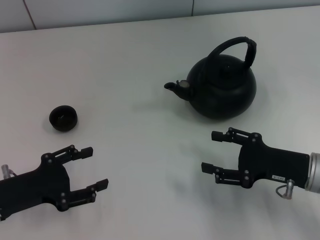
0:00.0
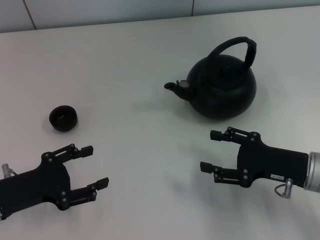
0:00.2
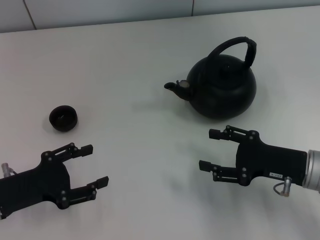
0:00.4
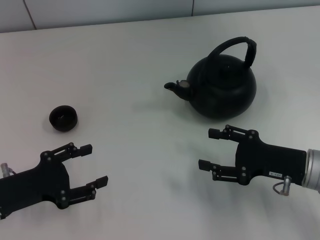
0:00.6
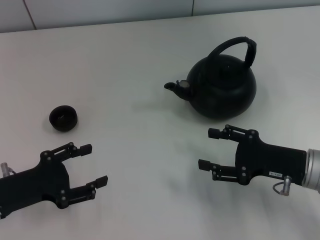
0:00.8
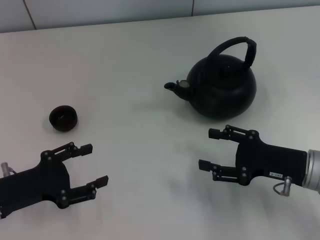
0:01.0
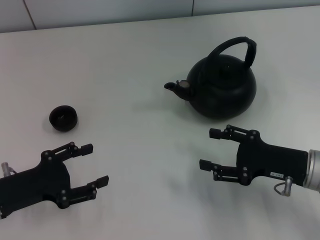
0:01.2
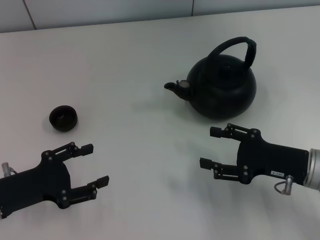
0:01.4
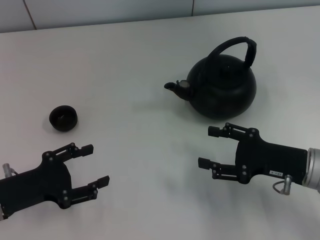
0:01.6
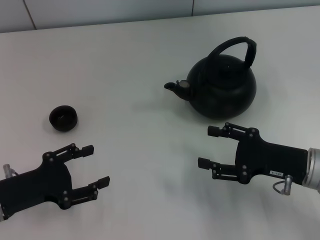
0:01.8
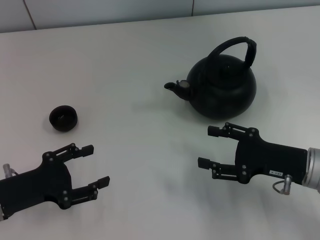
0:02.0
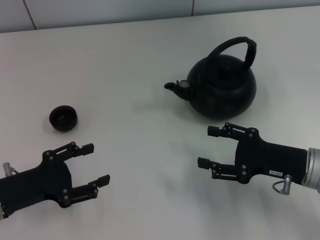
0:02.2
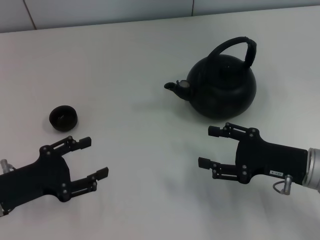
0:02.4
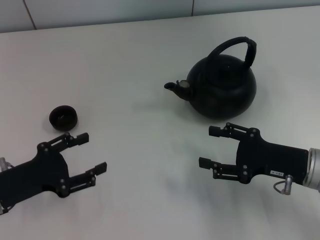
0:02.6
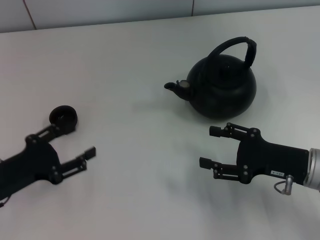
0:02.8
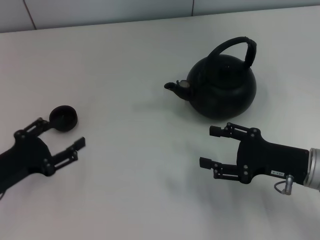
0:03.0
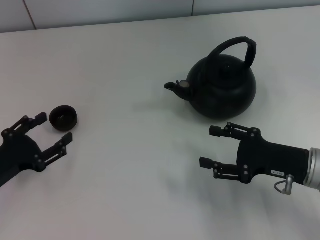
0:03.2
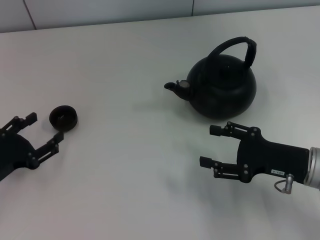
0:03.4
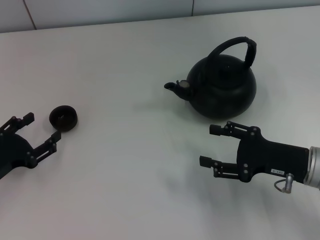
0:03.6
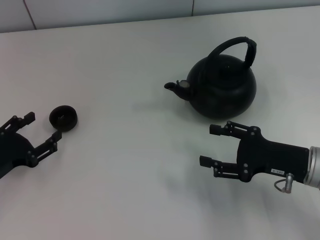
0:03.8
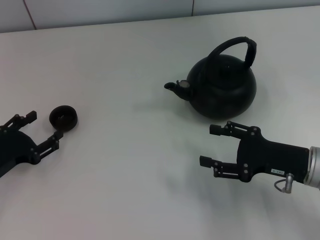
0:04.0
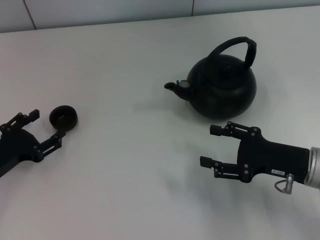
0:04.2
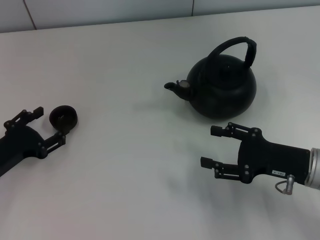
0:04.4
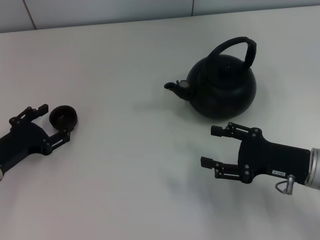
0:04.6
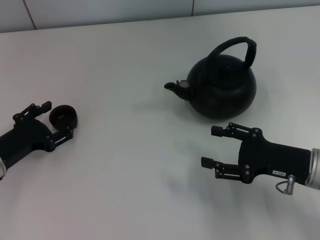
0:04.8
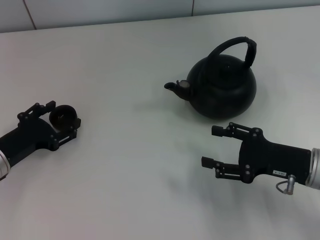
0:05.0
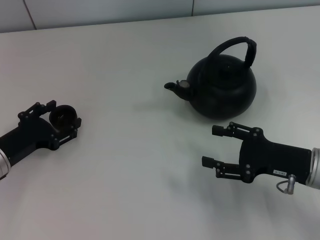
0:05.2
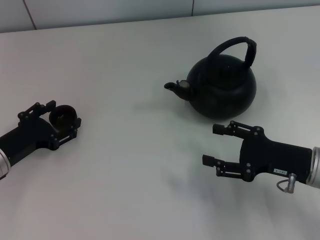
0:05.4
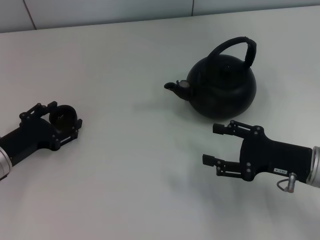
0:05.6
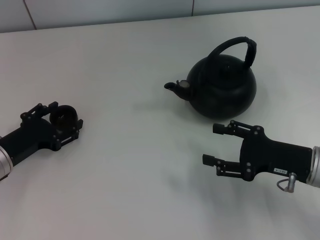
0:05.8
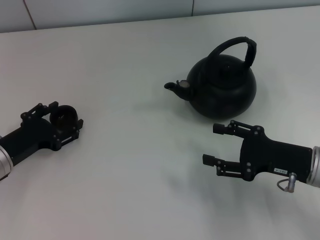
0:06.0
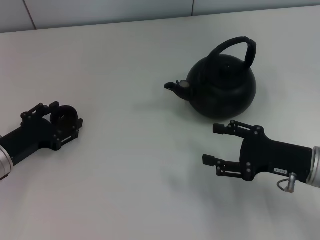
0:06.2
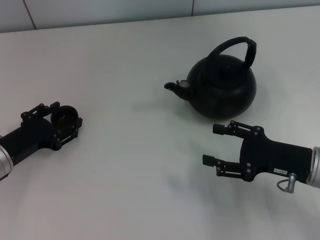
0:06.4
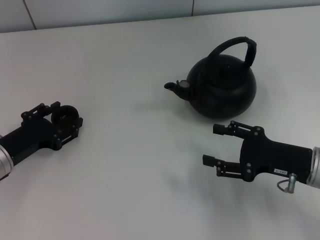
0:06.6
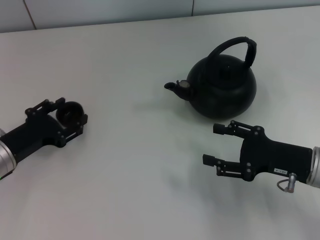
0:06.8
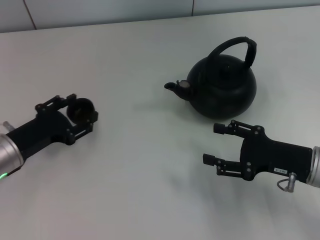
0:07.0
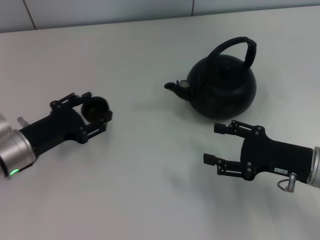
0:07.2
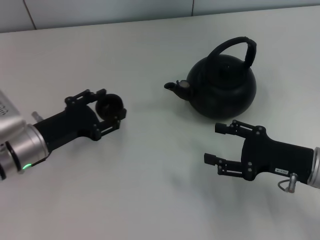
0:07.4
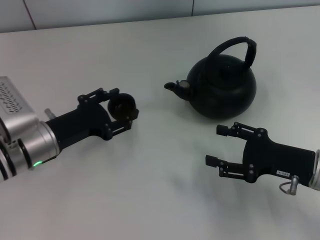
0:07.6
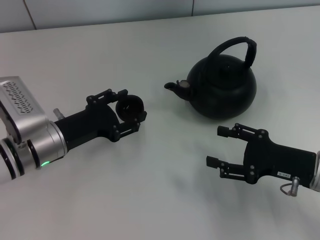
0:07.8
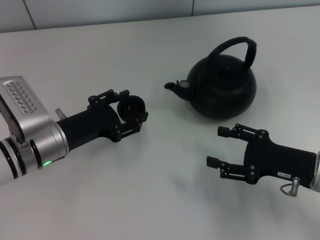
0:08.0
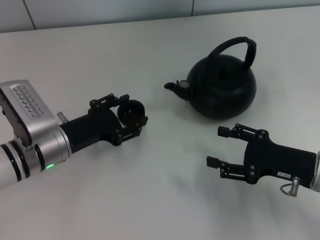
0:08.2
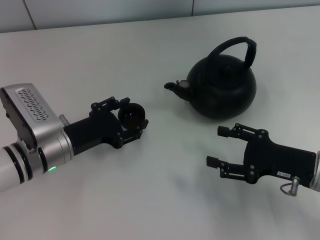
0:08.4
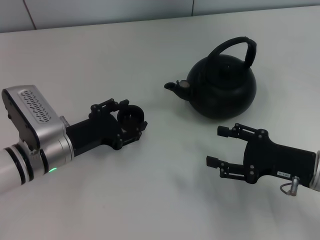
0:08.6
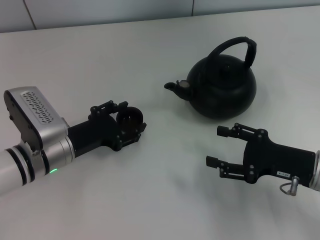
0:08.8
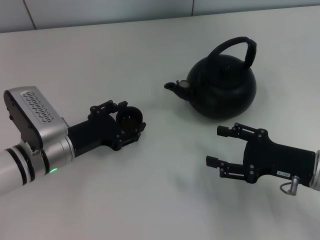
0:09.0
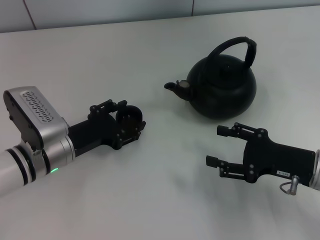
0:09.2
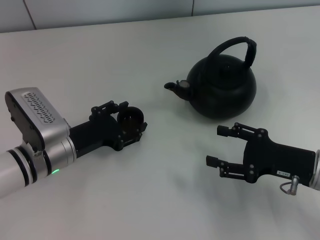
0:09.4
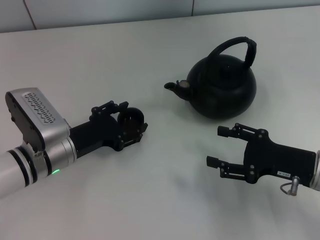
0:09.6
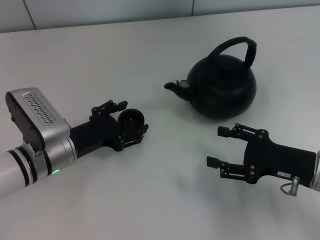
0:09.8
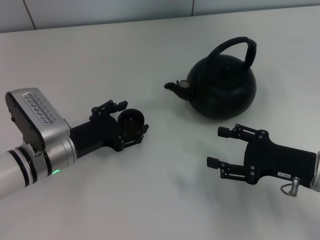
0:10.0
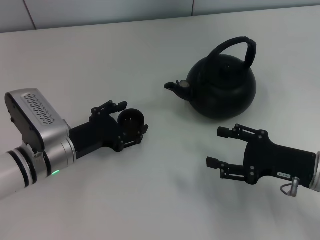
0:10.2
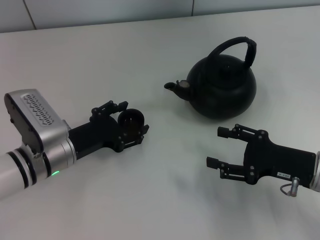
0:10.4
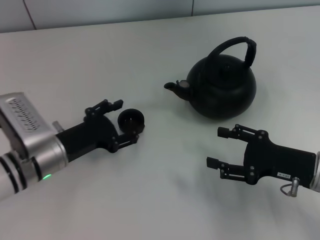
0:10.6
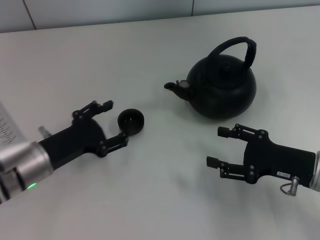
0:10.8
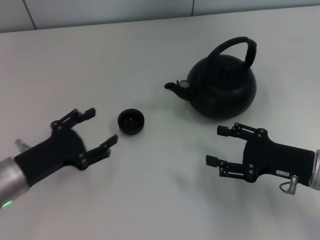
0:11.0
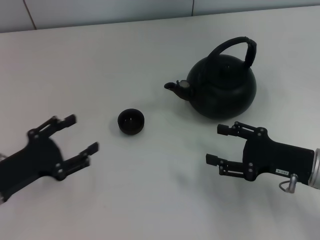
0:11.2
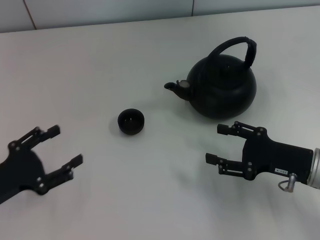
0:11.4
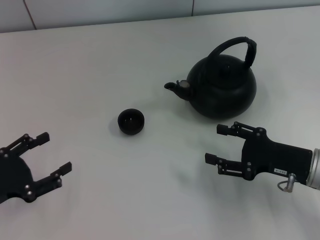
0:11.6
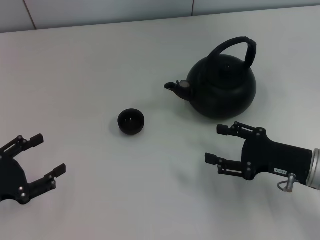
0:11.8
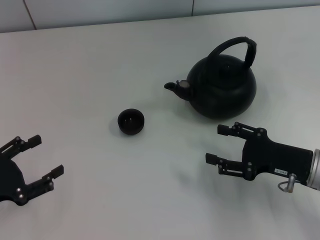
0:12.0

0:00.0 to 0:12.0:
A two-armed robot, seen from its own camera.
Task of the whole recording: Grasp the handle of the teapot with one hand and pour tea into the teacup.
Step, 0:00.0 to 0:07.0: Pick up the teacup with the left gripper.
Step, 0:07.2 to 0:11.2: Place the teacup in the center of view with the left gripper.
0:00.0 to 0:01.6: The two grippers keep their place.
0:01.6 to 0:03.0: The grippers move only a little.
0:03.0 to 0:06.0: The grippers move only a little.
0:06.0 to 0:07.6: The left gripper moves to the right, roughly 5 cm.
0:07.6 to 0:09.0: There are only small adjustments of the grippers.
0:09.0 to 0:10.4: Both grippers stay about where they are.
0:10.4 to 0:12.0: The left gripper travels to the left and backward by about 15 cm.

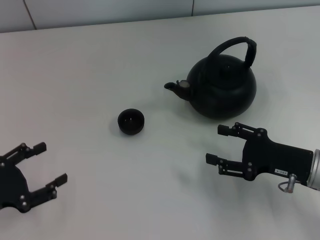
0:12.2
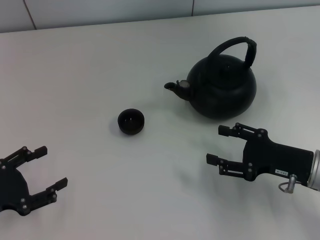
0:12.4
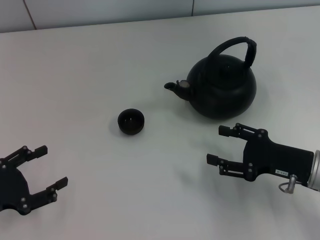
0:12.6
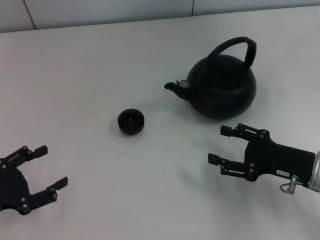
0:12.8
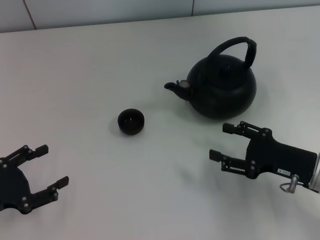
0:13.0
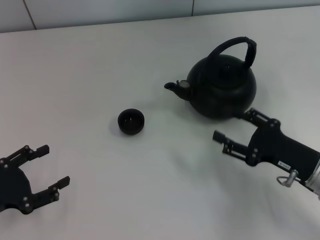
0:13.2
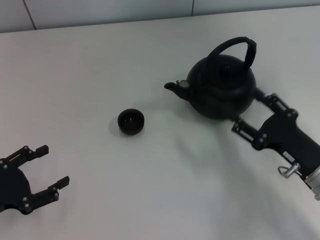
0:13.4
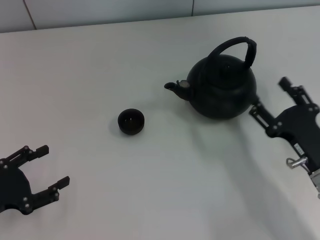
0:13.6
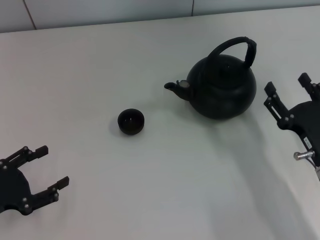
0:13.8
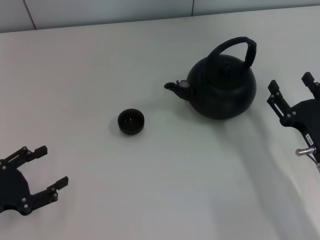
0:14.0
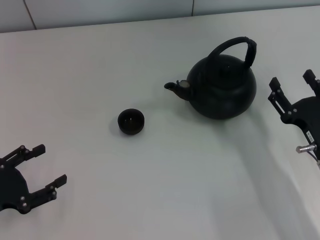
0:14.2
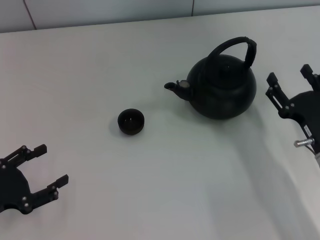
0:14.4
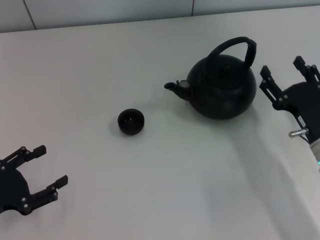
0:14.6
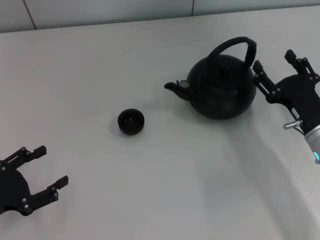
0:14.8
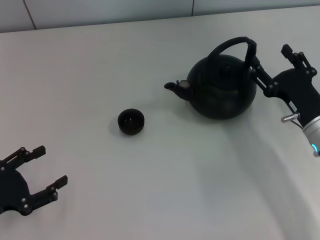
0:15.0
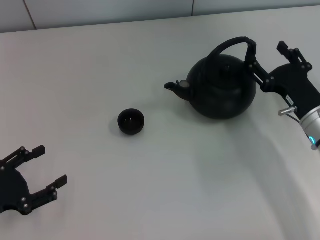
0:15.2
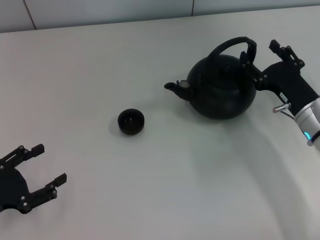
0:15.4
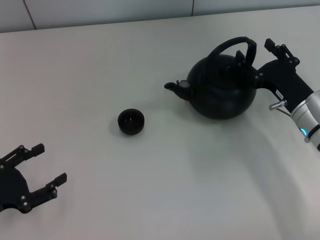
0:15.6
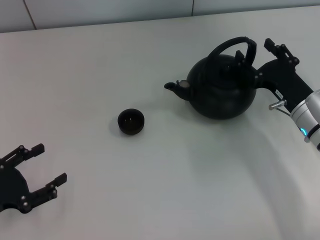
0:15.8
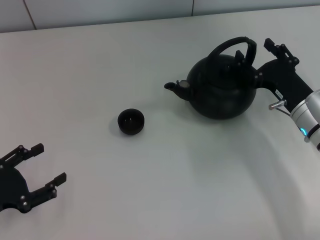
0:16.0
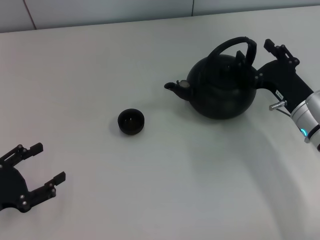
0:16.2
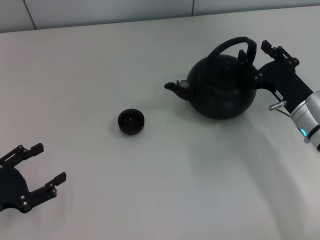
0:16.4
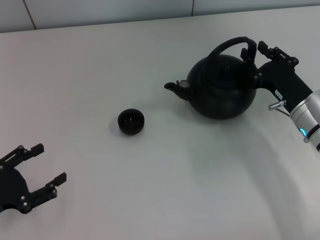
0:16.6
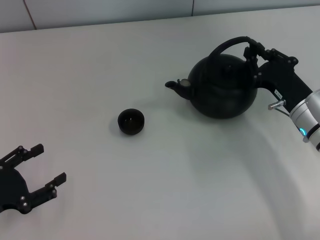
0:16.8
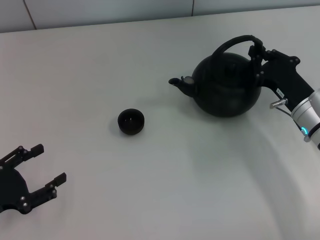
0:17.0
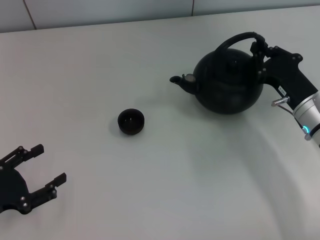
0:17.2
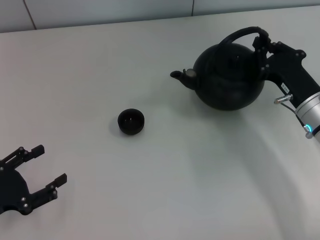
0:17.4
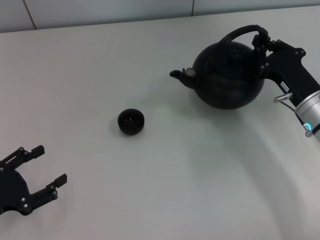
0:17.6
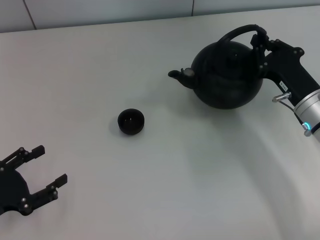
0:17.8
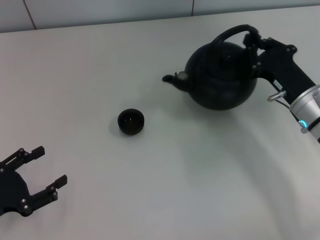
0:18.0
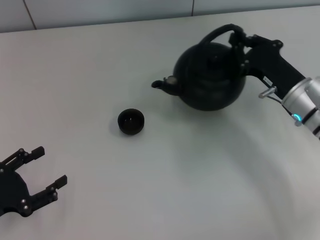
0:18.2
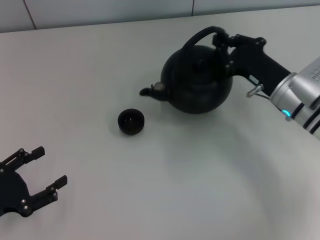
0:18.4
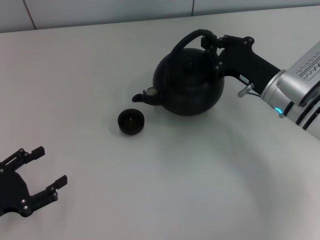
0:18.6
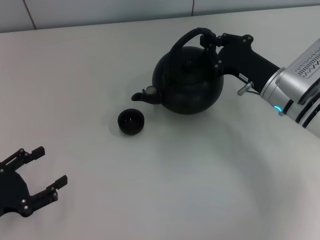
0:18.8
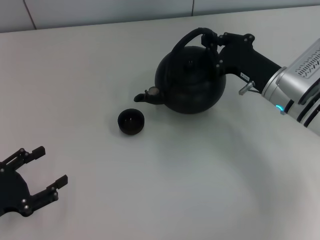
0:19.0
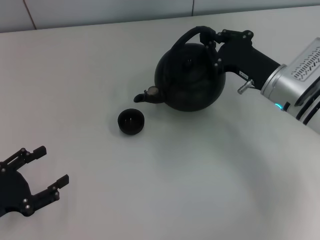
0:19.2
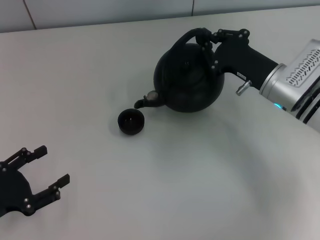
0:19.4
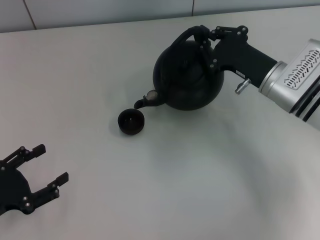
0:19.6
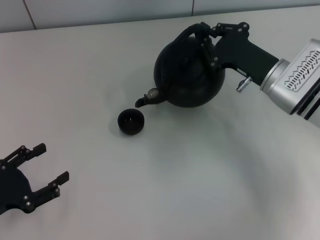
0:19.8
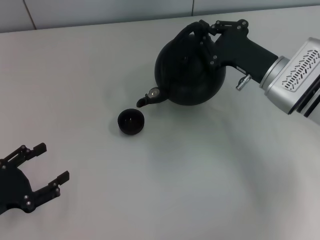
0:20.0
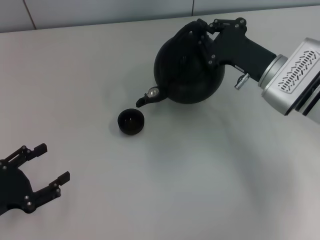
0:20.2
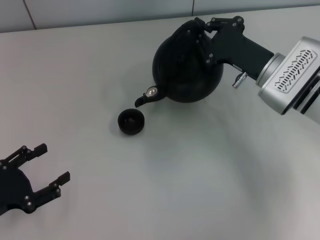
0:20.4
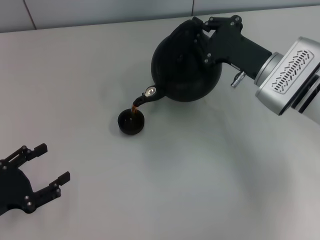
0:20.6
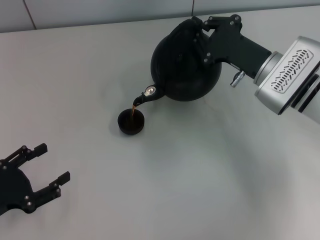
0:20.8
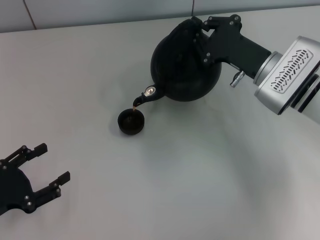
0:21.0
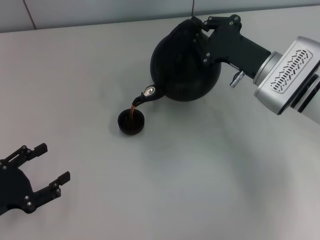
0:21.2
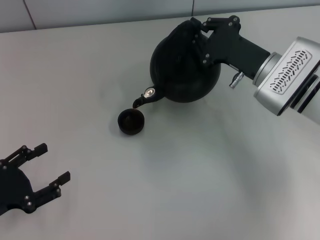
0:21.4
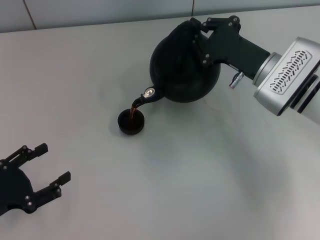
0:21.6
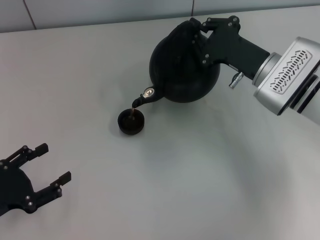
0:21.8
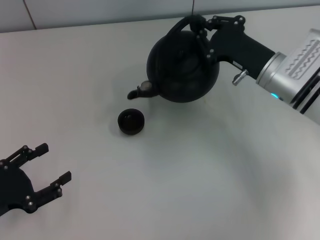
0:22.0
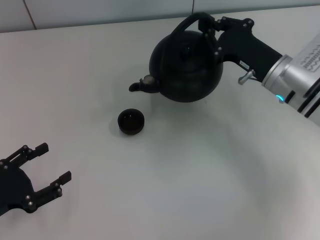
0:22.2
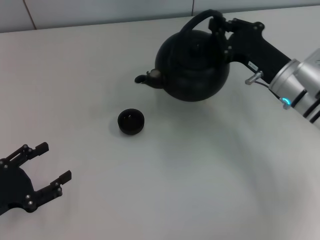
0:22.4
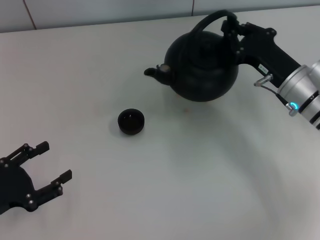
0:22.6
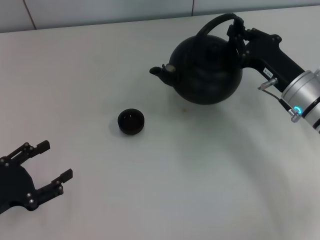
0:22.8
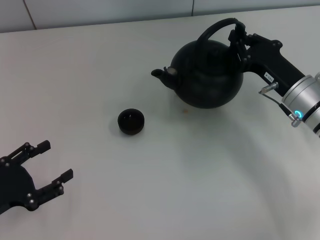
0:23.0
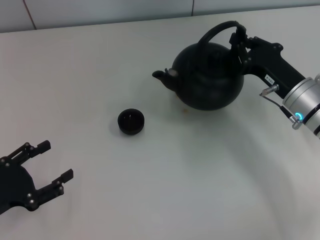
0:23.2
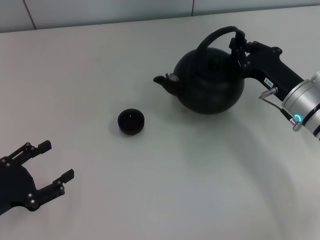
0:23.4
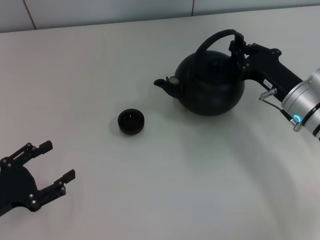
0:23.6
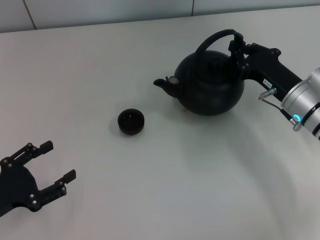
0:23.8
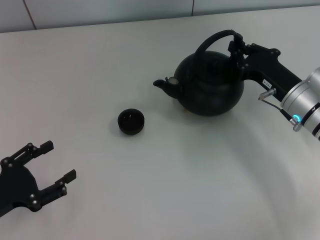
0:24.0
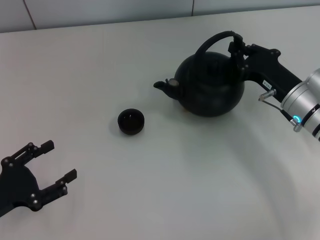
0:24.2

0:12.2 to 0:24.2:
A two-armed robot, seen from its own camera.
Task of the whole recording: Grasp the handle of the teapot with one hand and pour tea into the teacup.
Step, 0:12.2 to 0:18.0: Pick up the teapot with the right gripper.
0:13.8 to 0:15.2: The right gripper heads forward, covering some 10 cm.
0:15.2 to 0:16.6: The grippers make only small movements.
0:16.6 to 0:18.2: The right gripper closes.
0:19.8 to 0:21.2: The grippers move only a little.
0:22.6 to 0:24.2: There are only small adjustments of the grippers.
